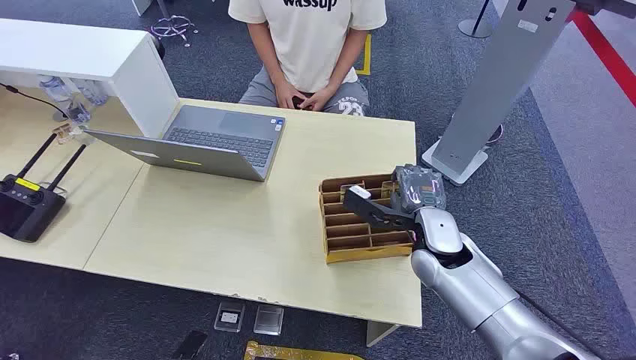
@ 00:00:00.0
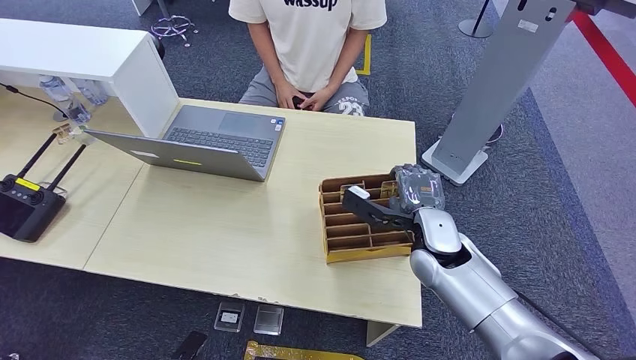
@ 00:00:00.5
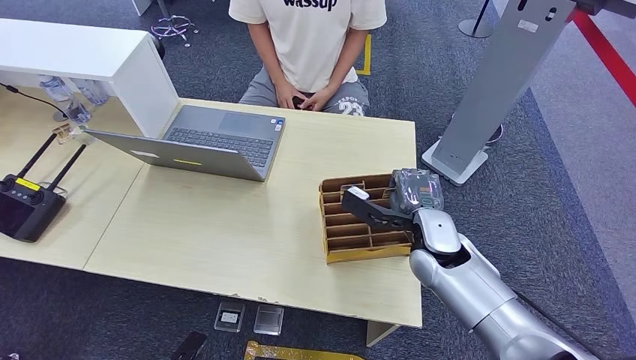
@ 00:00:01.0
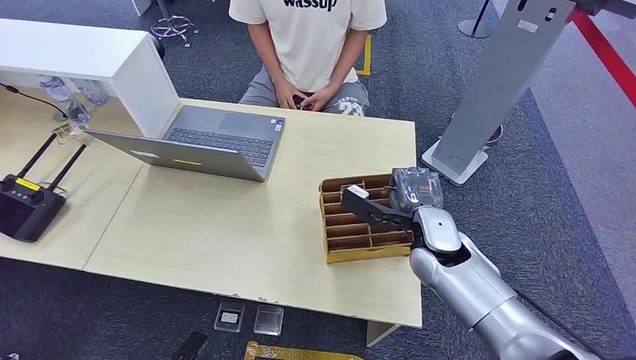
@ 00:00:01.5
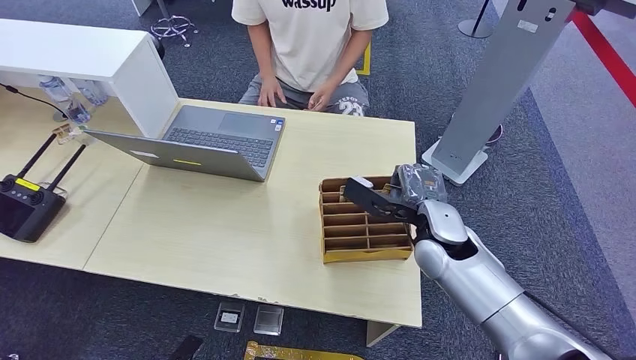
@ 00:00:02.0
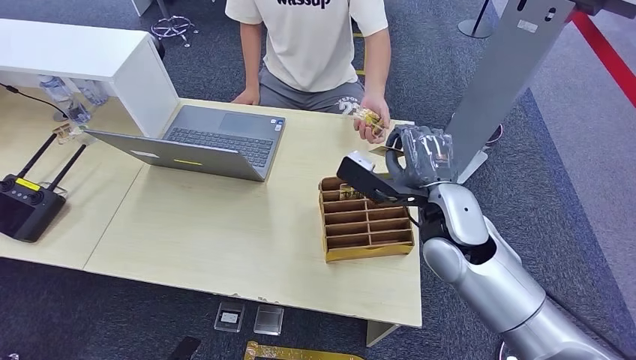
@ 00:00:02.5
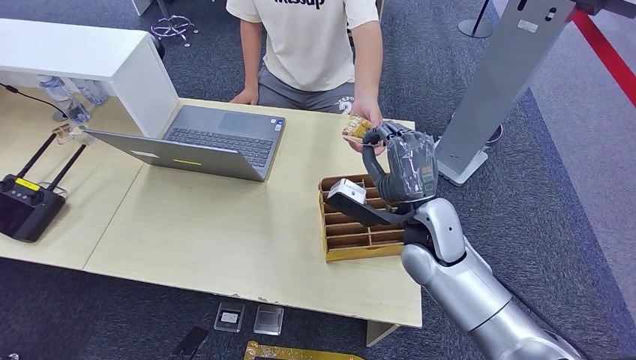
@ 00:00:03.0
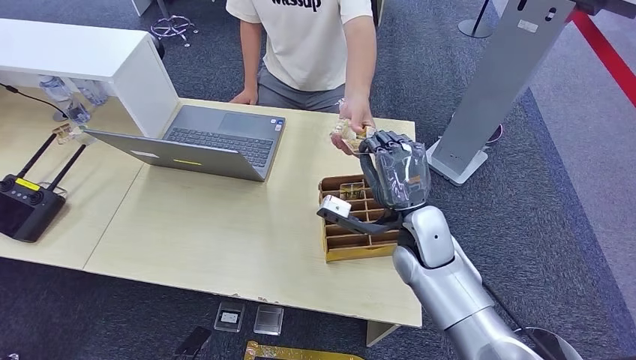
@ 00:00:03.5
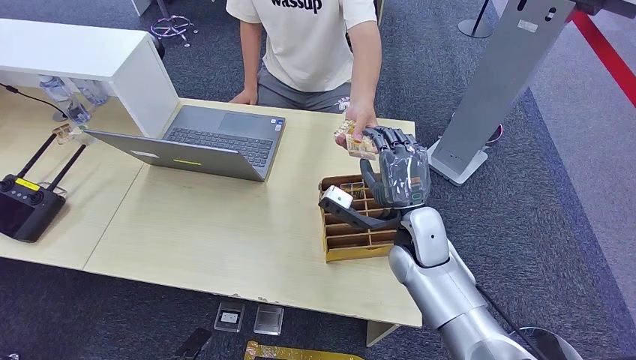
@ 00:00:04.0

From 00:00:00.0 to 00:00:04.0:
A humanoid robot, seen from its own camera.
Step, from 00:00:00.0 to 00:00:02.0: Pick up the key card from the card box.
Step, from 00:00:03.0 to 00:00:04.0: Hand the key card to the target.
From 00:00:02.0 to 00:00:04.0: The right hand reaches roughly 5 cm upward, then returns.
